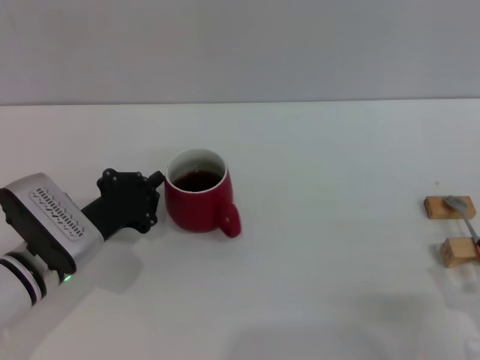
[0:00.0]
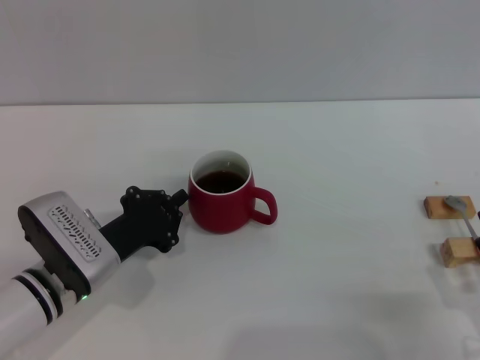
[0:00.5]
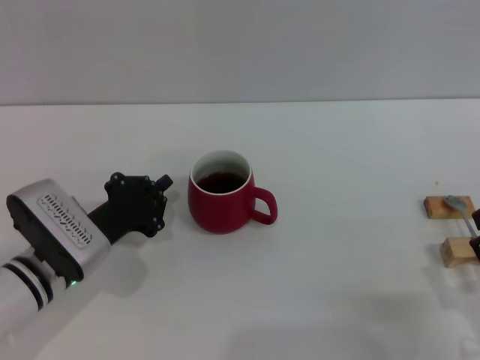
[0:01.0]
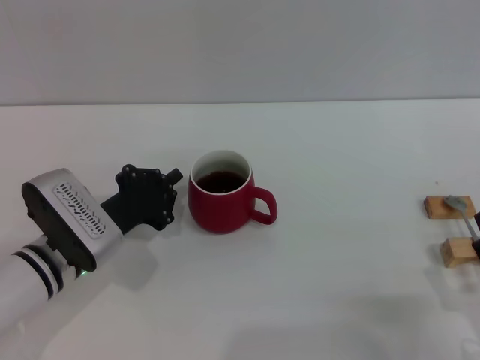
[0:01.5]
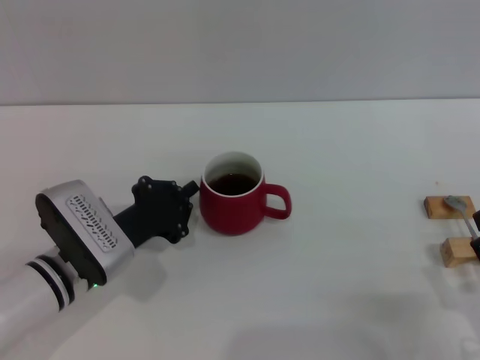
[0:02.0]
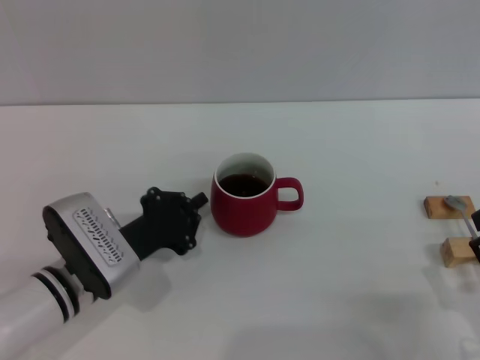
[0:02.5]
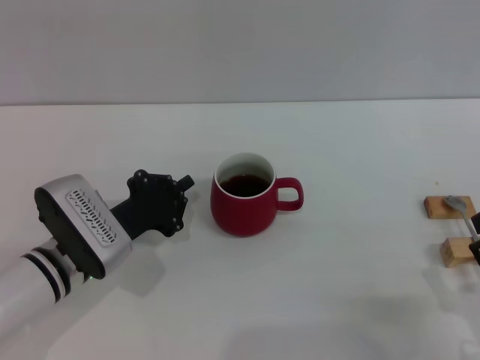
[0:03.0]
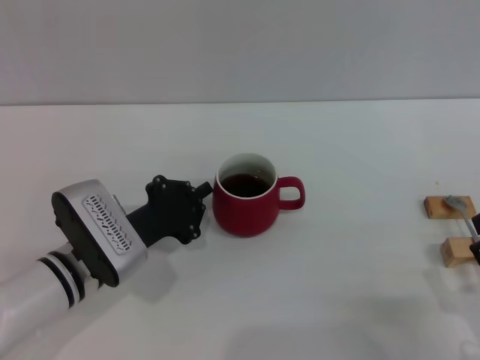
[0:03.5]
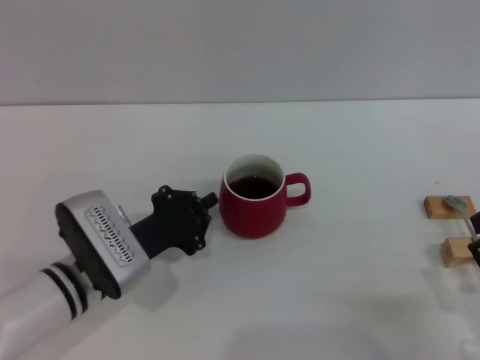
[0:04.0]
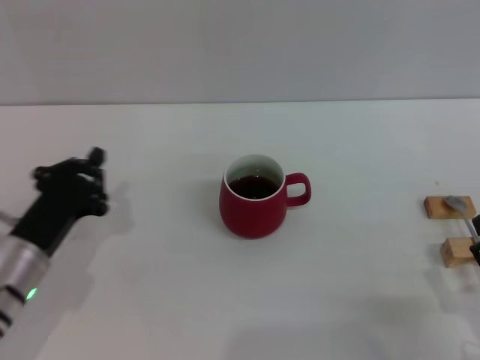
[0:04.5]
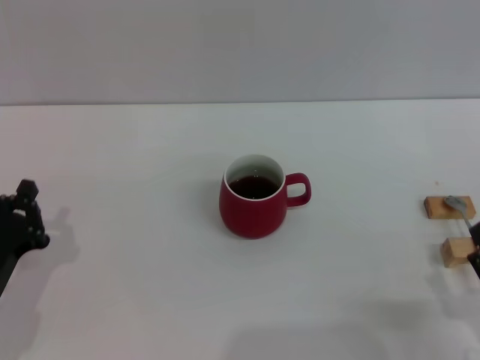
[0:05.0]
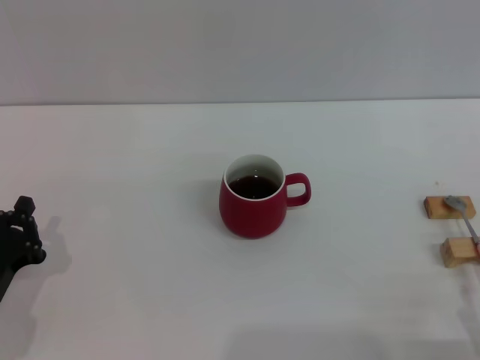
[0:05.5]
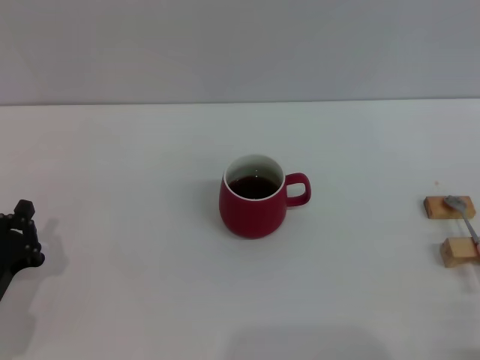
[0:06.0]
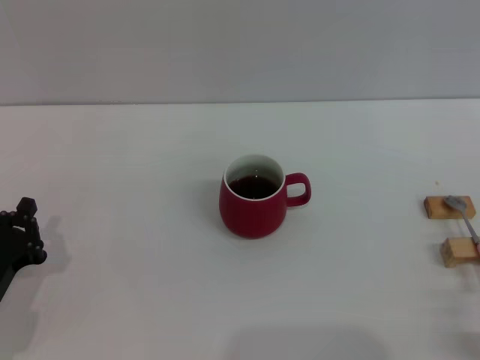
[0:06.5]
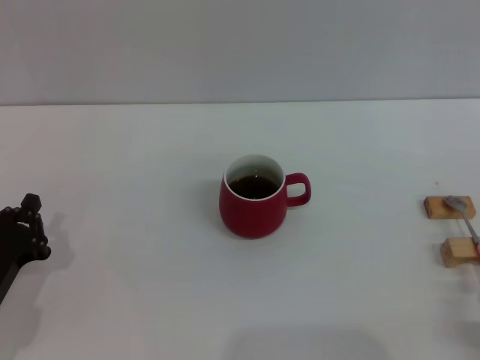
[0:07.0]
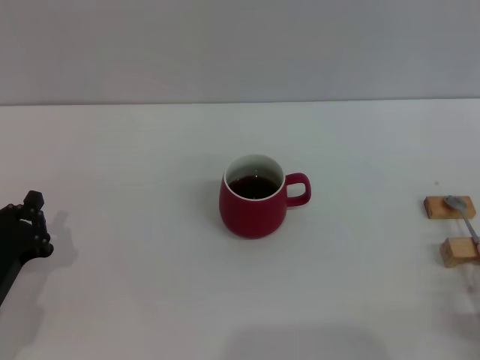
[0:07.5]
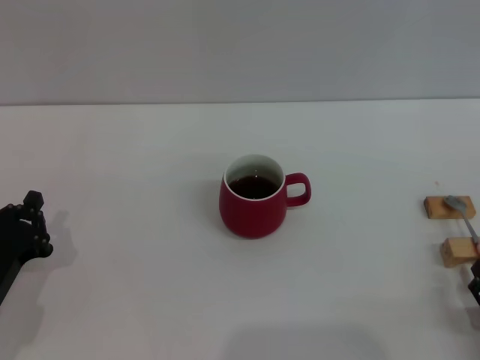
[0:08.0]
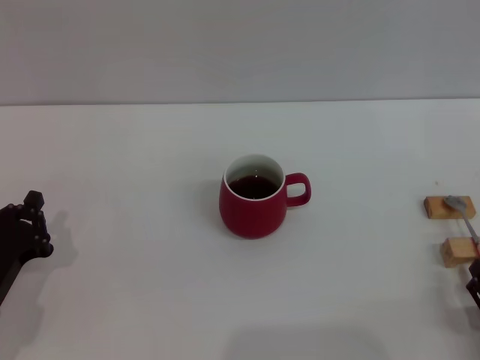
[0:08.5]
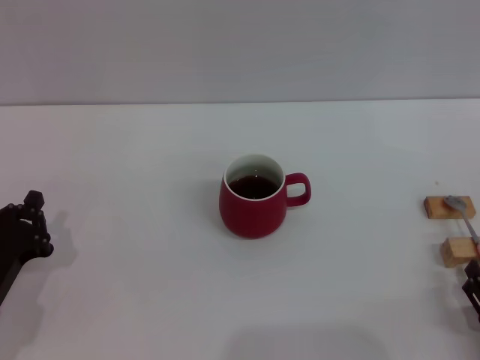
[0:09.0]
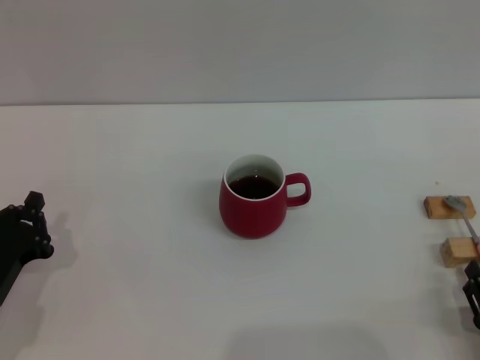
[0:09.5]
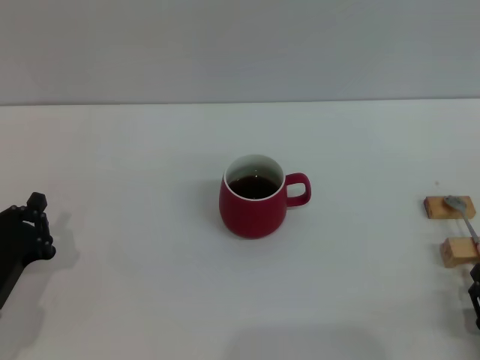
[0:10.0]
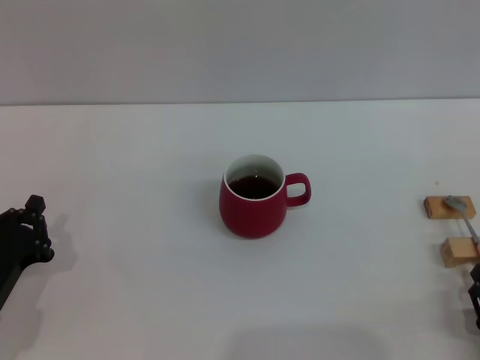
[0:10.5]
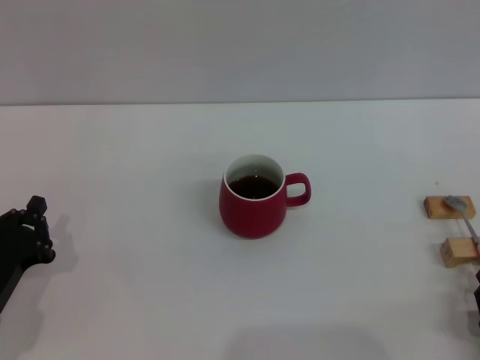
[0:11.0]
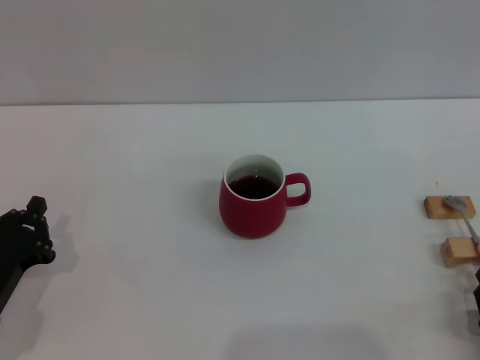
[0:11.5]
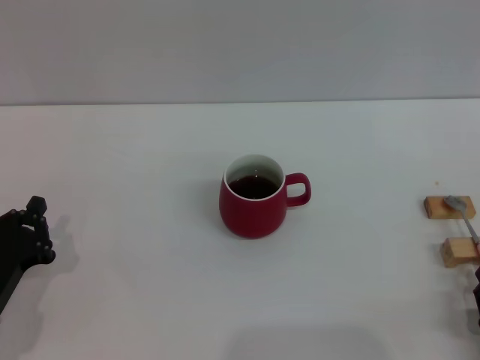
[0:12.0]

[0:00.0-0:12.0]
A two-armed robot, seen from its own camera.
Task of the whole recording: Move the red cup to the center, lift the pink spoon, stir it three times in the cup, and put the spoon into the cup.
Step, 0:00.0 to 0:02.5: Move the cup with coffee to the center of view with the left gripper.
0:00.0 to 0:04.0: The grippers move only a little.
0:04.0 to 0:06.0: The left gripper shifts about 15 cm to the left and backward. Meanwhile the right gripper moves backward, about 5 cm.
0:06.0 to 0:08.0: The right gripper moves forward, approximately 5 cm.
0:10.0 to 0:12.0: Neither gripper changes place.

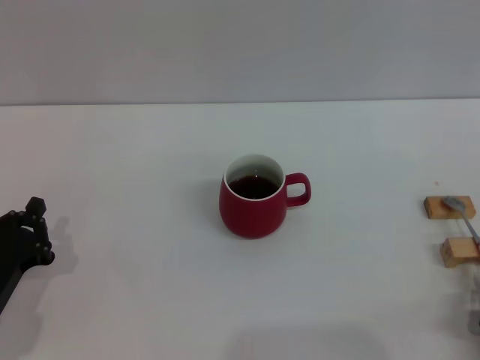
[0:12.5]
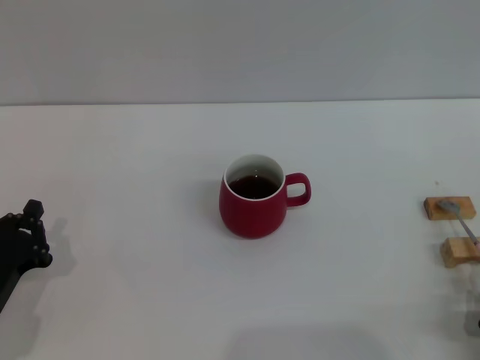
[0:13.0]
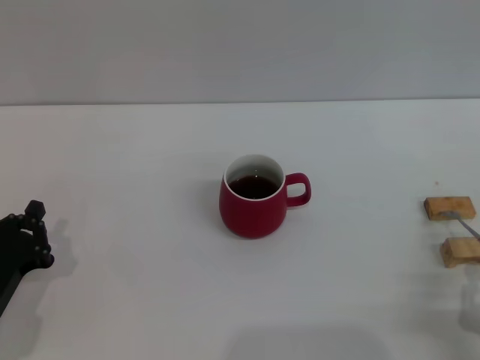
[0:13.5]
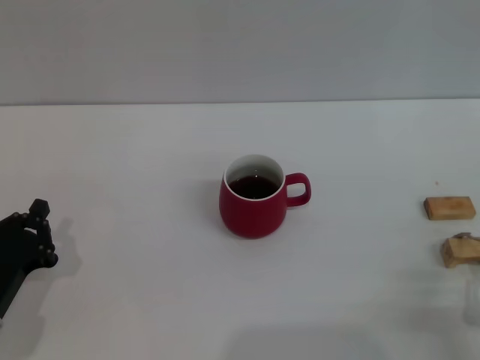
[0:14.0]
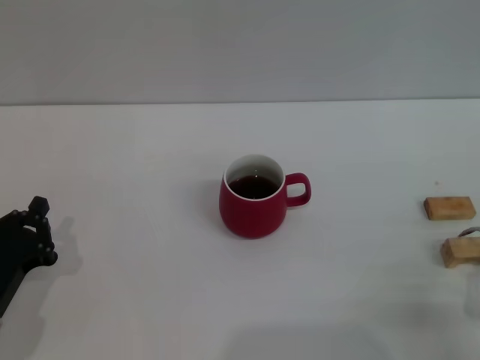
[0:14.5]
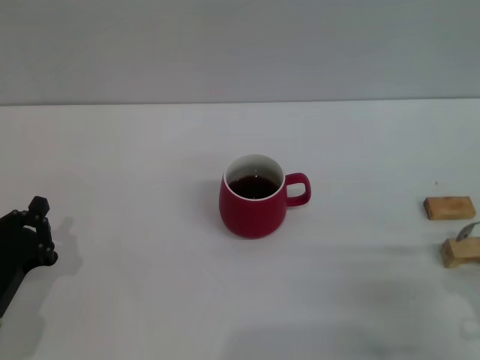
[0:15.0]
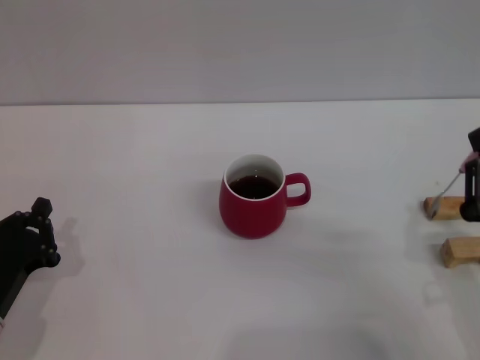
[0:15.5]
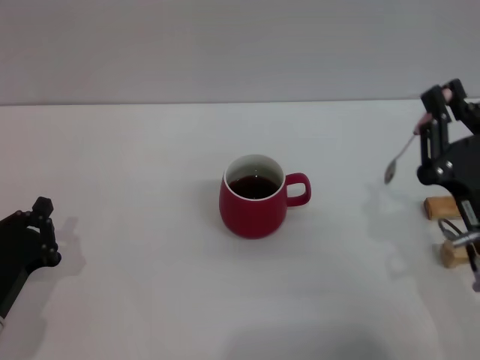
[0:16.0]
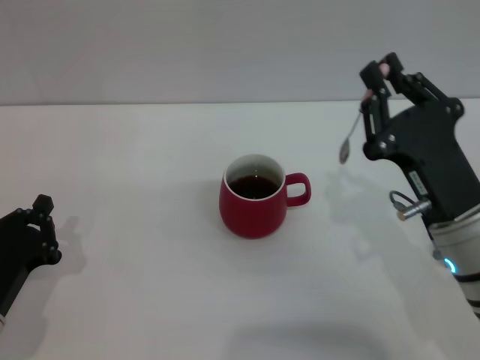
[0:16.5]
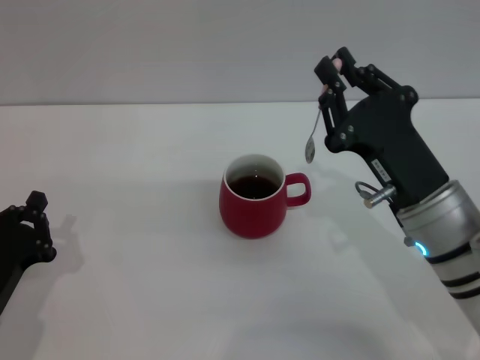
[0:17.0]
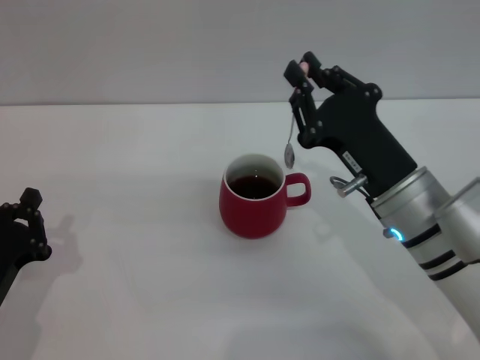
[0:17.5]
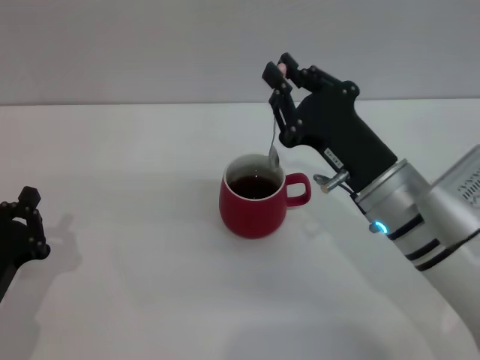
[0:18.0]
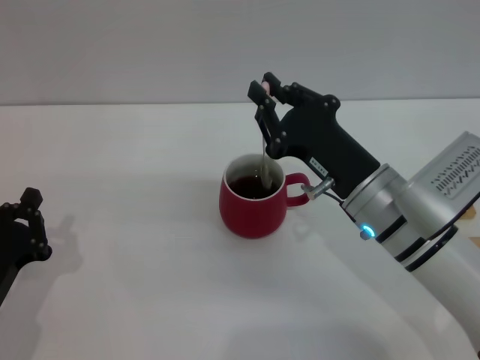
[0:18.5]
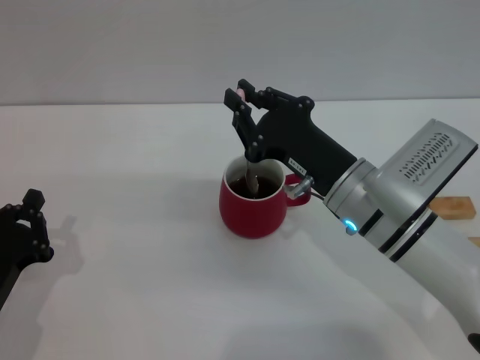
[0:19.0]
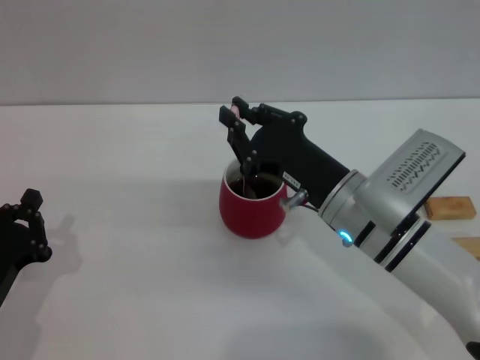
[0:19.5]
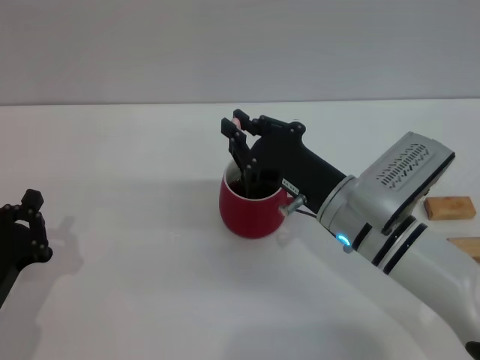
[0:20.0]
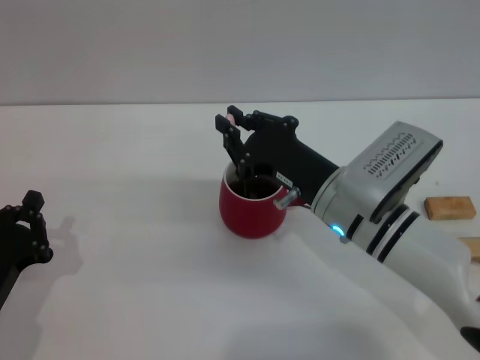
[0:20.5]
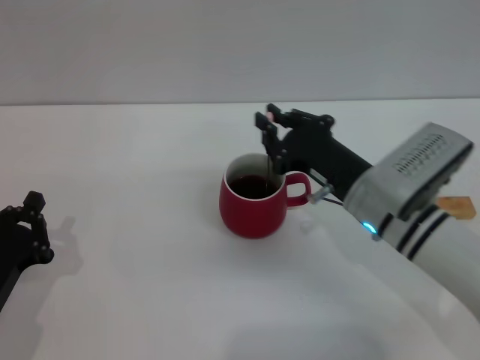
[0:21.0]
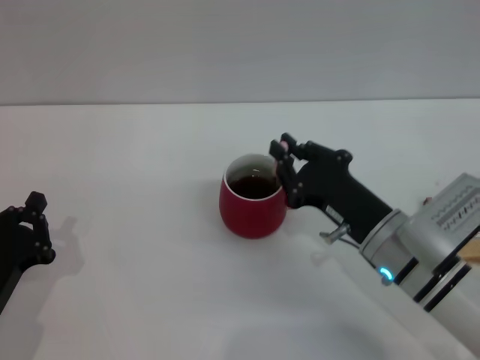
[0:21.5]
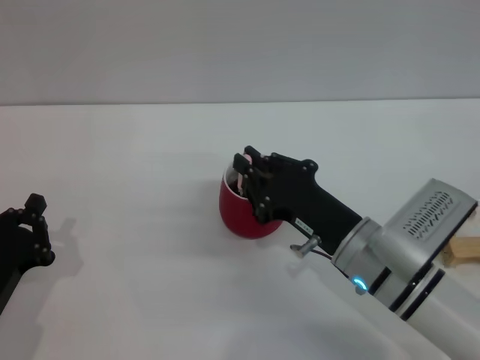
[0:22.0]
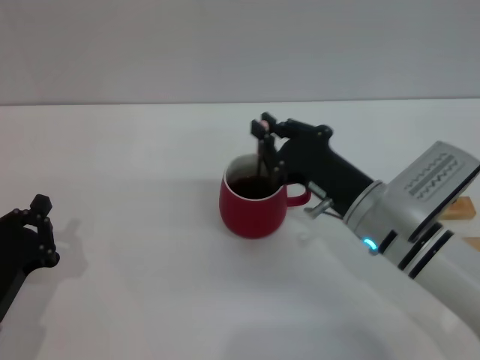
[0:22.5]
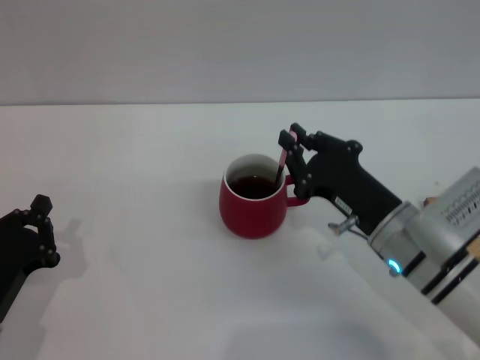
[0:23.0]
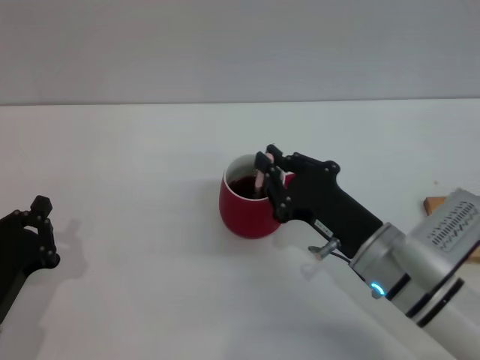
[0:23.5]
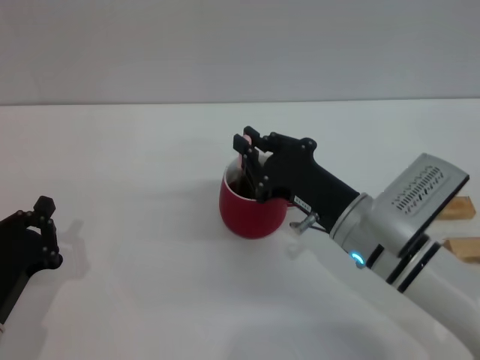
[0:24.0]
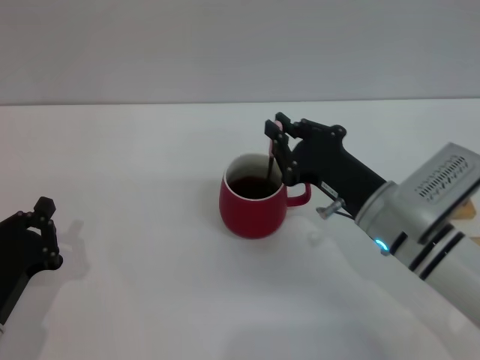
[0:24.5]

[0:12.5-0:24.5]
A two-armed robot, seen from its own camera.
Task of the whole recording: Move the red cup to the center, lift the pink spoon, stir it three times in the cup, and put the spoon into the cup.
0:12.5 to 0:14.5: The grippers stay close to where they were, moving slightly.
0:14.5 to 0:16.5: The right gripper is displaced forward, to the left and upward by approximately 20 cm.
0:16.5 to 0:18.5: The right gripper moves to the left, some 5 cm.
0:18.5 to 0:20.5: There are only small adjustments of the grippers.
0:22.5 to 0:24.5: The grippers move only a little.

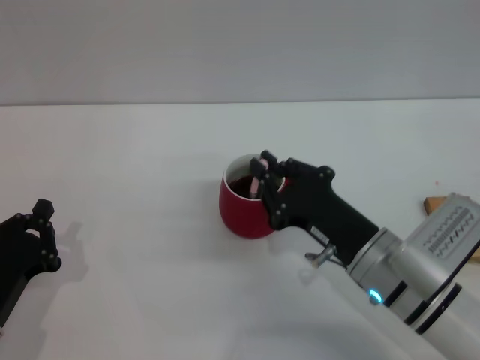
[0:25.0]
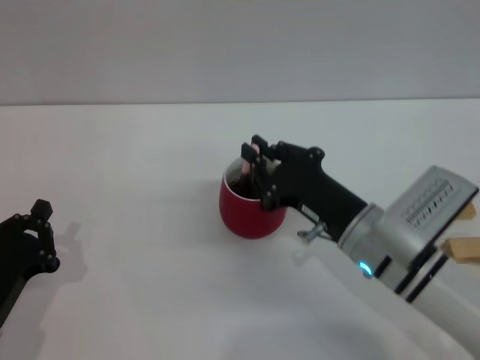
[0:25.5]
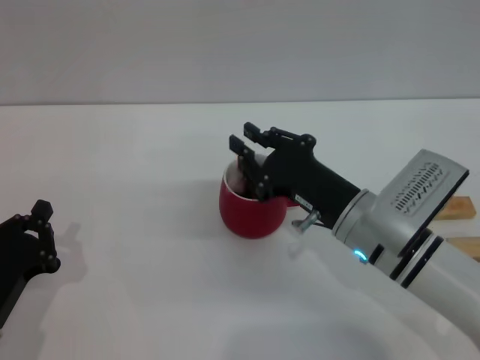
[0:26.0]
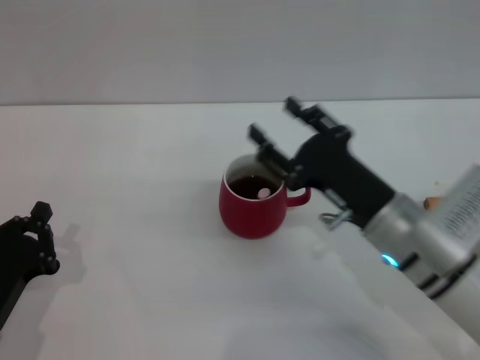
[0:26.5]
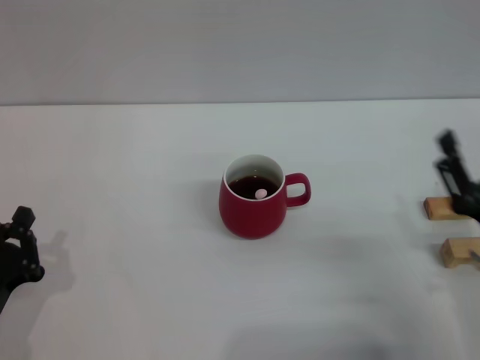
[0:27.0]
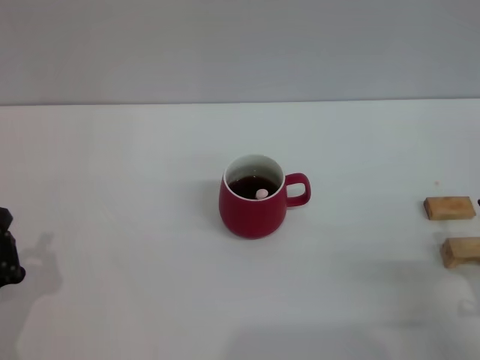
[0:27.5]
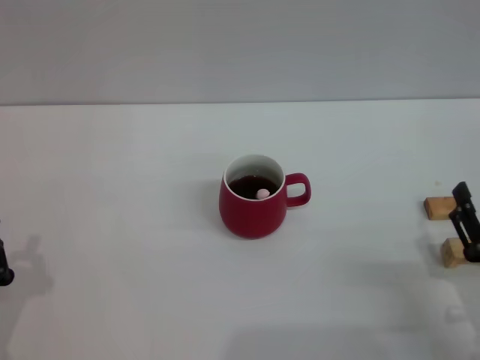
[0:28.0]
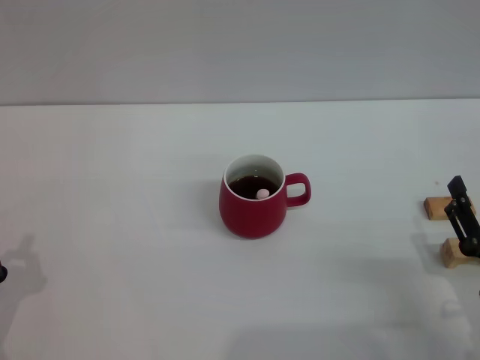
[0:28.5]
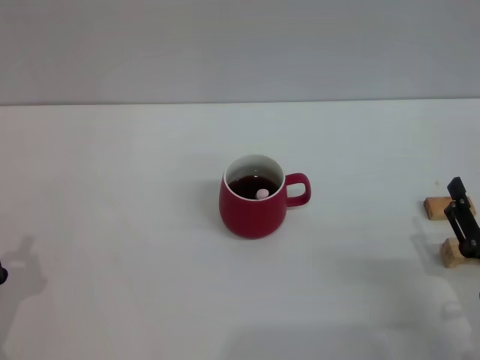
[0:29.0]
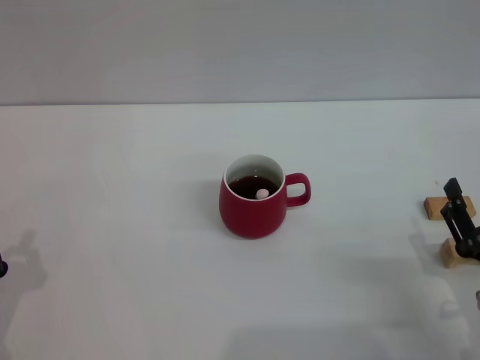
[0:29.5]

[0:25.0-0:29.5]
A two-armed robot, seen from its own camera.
Task of the whole recording: Move the red cup to the center, lift the pink spoon, stir it three times in the cup, and put the spoon into the cup.
0:25.0 to 0:27.0: The right gripper travels to the right and backward by roughly 10 cm, and opens.
0:27.0 to 0:29.5: There are only small adjustments of the grippers.
